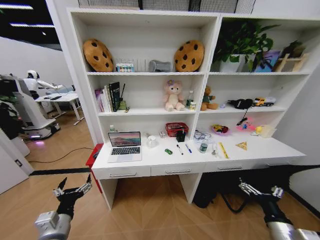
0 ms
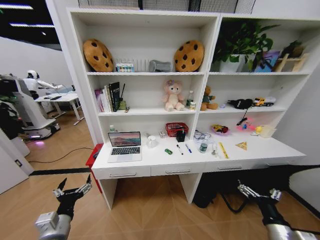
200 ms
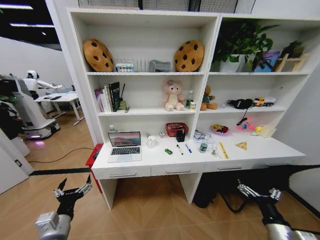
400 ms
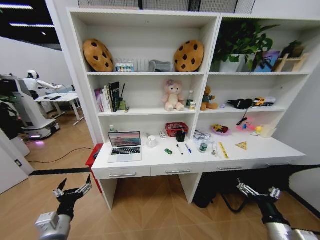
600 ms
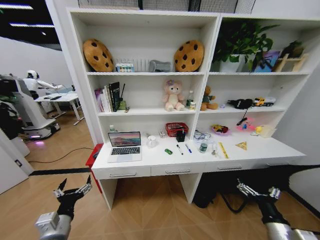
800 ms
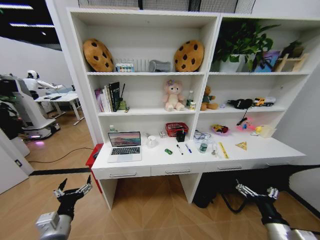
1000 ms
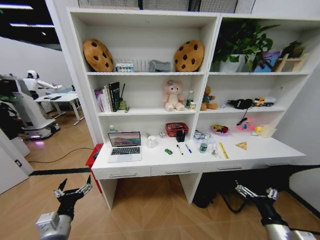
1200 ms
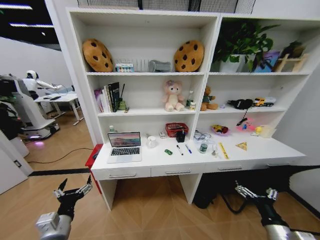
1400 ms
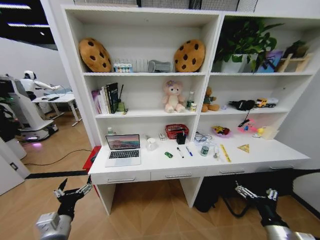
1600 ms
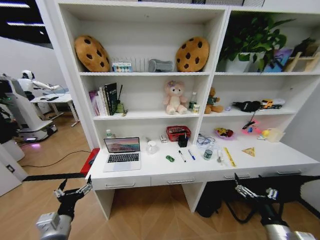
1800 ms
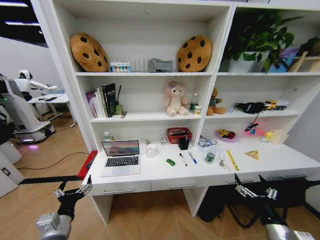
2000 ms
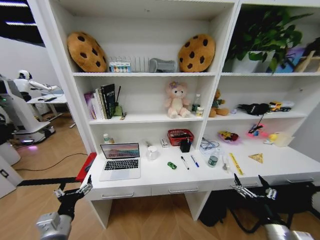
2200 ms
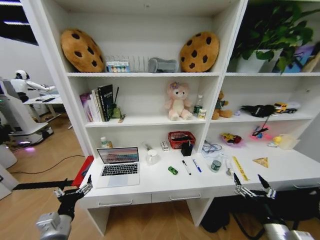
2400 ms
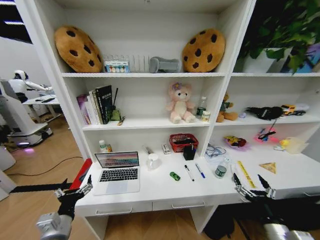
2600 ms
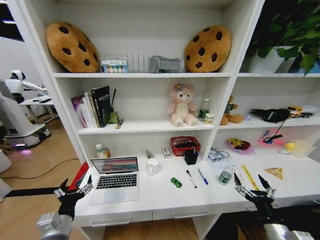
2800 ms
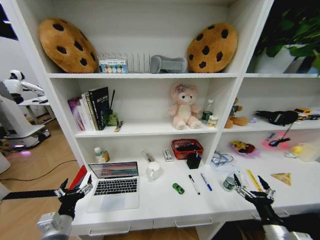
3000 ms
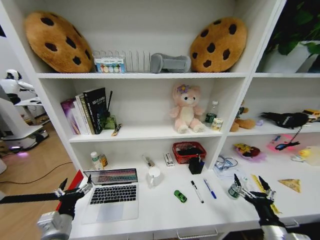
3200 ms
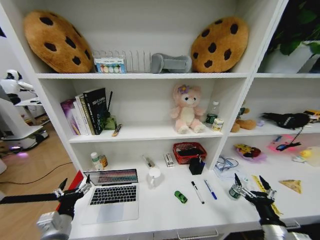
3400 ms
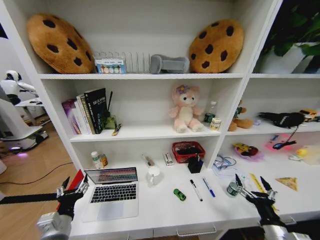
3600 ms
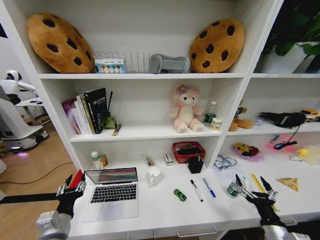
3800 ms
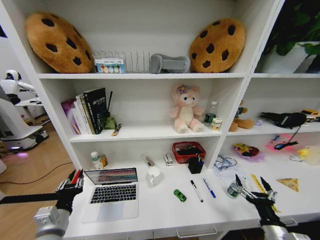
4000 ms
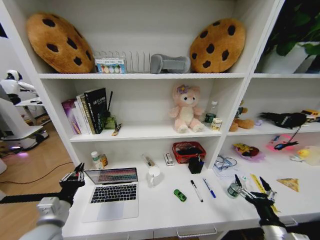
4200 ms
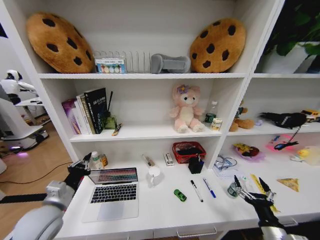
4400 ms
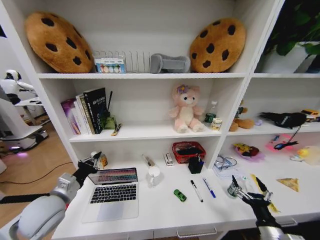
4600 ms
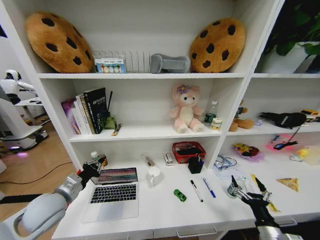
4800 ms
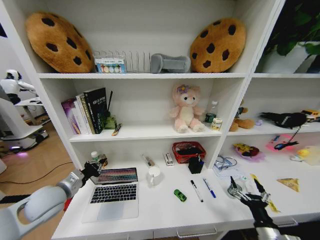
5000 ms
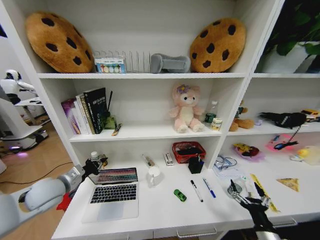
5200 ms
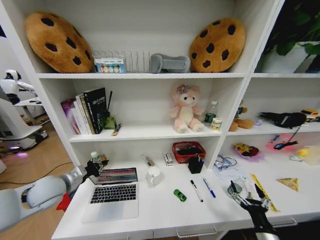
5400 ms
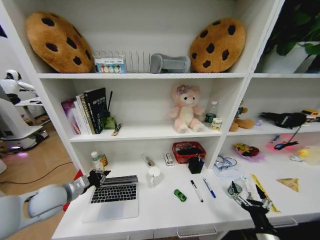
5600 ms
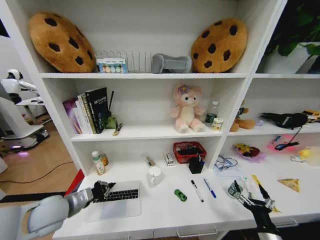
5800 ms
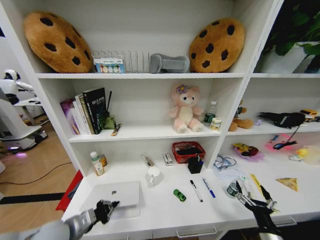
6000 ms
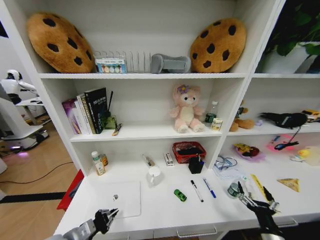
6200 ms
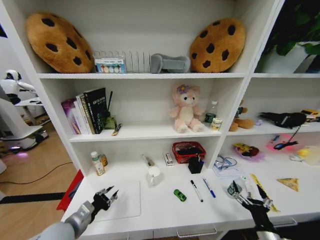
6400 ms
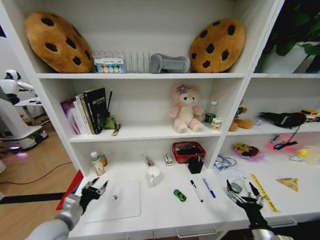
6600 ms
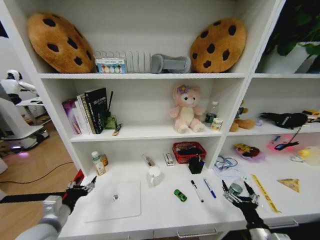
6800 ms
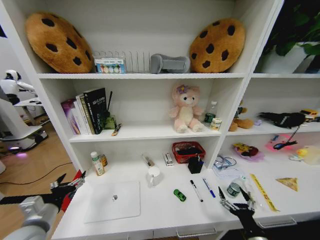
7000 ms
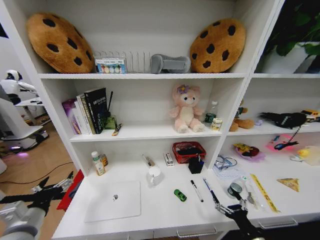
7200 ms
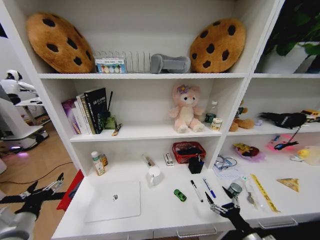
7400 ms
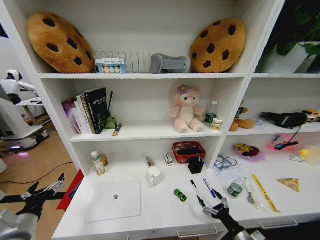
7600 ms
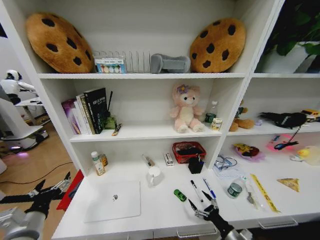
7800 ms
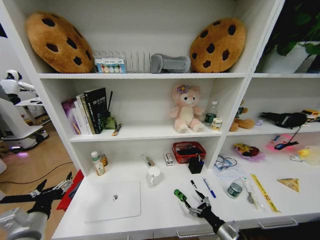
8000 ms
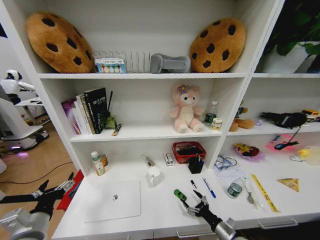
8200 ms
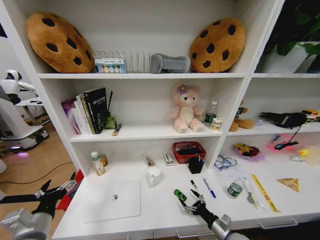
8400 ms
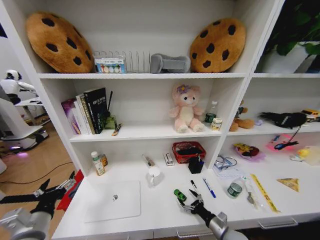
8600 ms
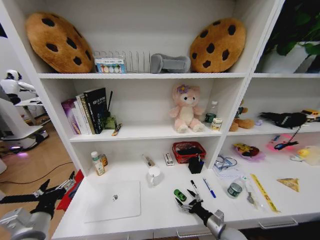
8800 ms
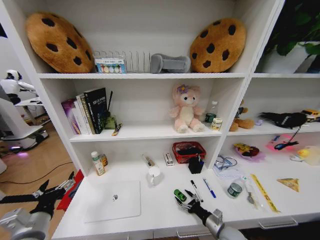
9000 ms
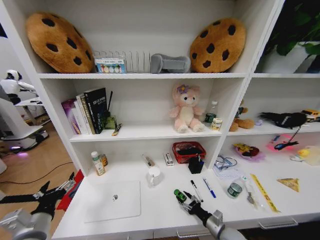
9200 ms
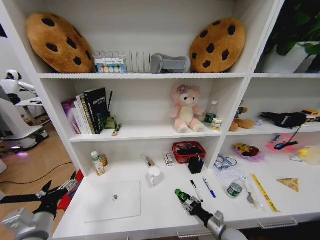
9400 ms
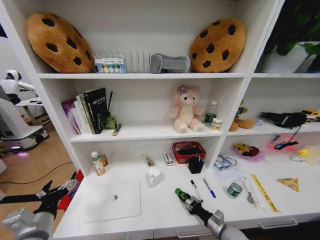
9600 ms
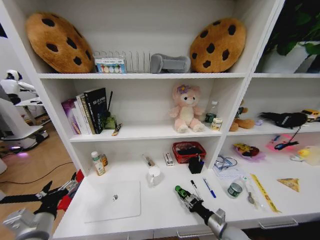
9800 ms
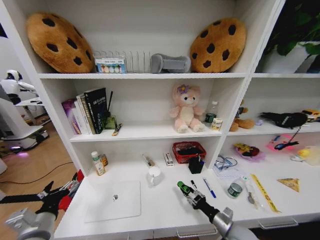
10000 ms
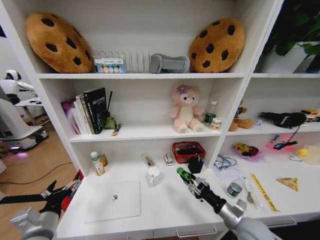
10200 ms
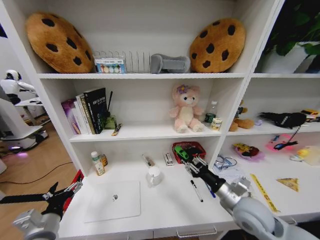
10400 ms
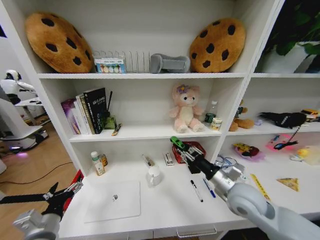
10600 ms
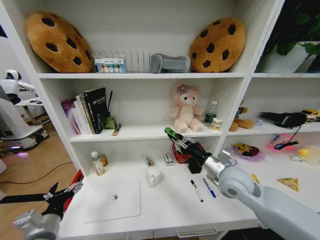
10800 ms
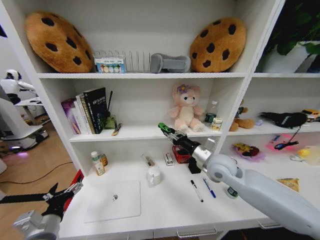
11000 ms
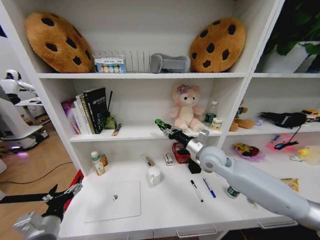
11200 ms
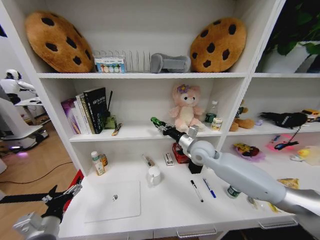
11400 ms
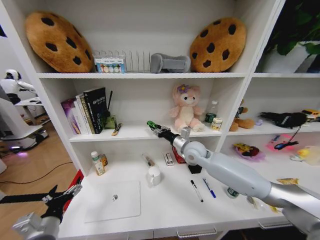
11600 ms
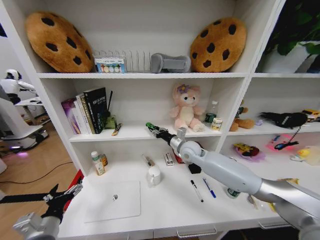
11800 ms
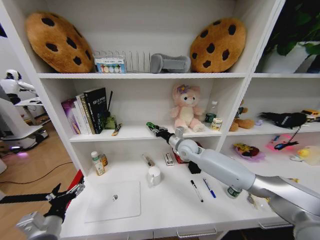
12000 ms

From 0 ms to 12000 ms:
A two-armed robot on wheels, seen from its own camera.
Task of the whole recording: Organize the objects on the table.
From 3000 ms to 4400 ms: The left gripper is displaced upward and forward by roughly 10 cm, and closes its fingers.
From 4400 ms to 6000 ms: The left gripper goes forward and returns, about 10 cm each way.
From 6000 ms to 7600 ms: The left gripper travels to the left by about 10 cm, and opens.
From 7600 ms to 9000 ms: The right gripper shifts approximately 10 cm forward and to the left.
From 9000 ms to 10400 ms: The right gripper is displaced upward by roughly 20 cm, and closes its fingers.
From 10400 ms to 12000 ms: The right gripper moves forward and to the left, approximately 30 cm.

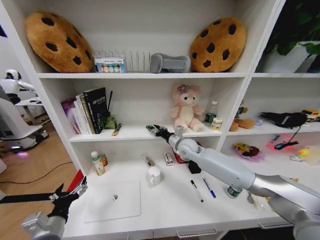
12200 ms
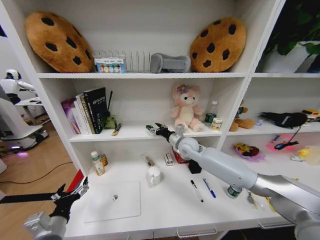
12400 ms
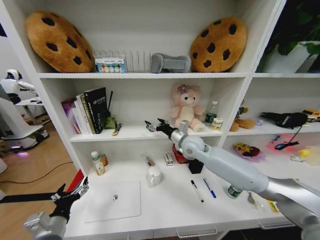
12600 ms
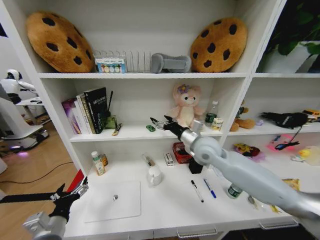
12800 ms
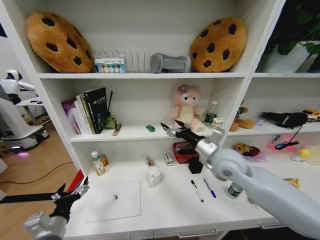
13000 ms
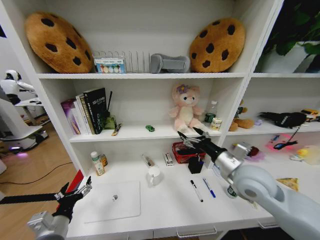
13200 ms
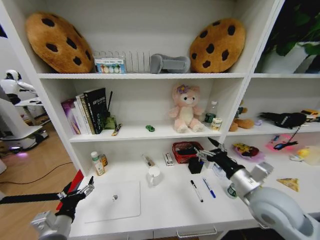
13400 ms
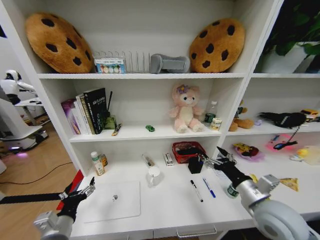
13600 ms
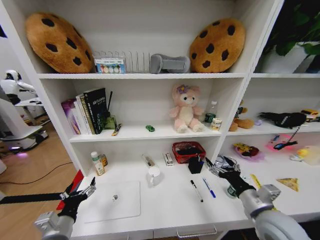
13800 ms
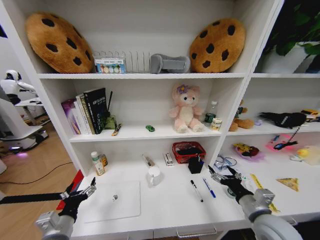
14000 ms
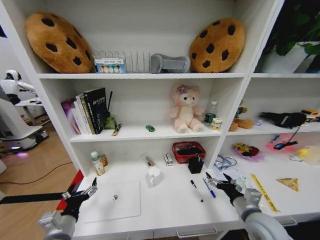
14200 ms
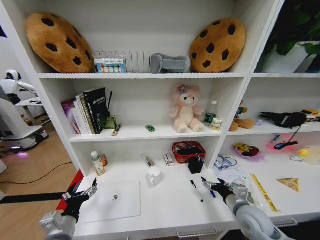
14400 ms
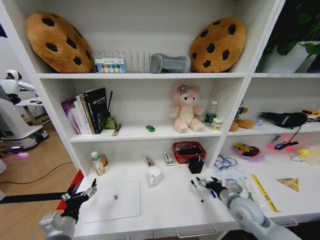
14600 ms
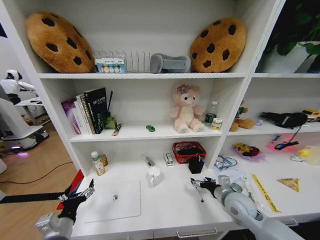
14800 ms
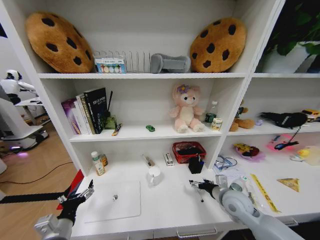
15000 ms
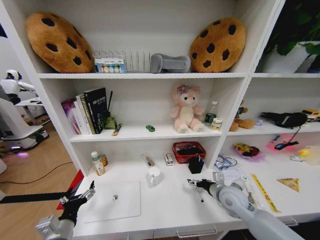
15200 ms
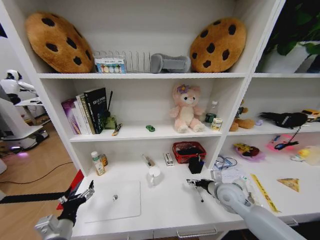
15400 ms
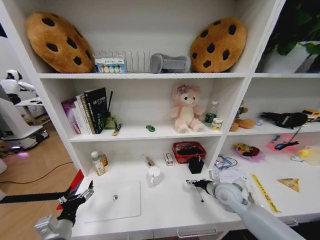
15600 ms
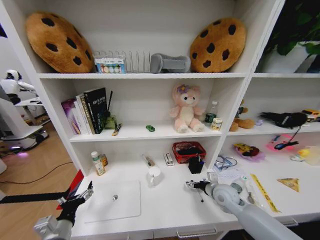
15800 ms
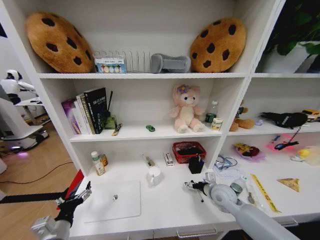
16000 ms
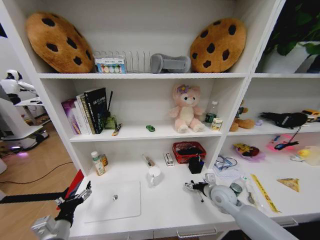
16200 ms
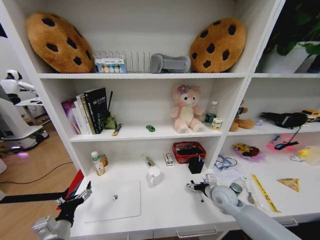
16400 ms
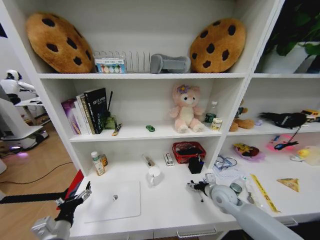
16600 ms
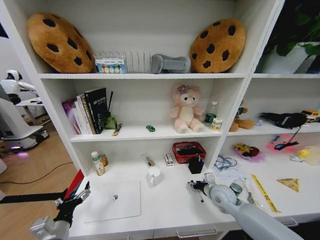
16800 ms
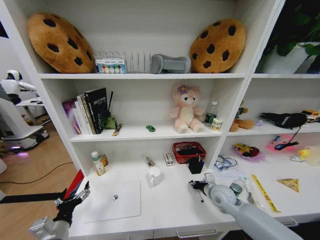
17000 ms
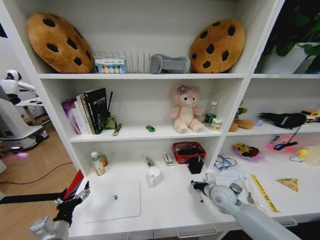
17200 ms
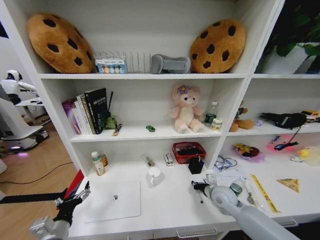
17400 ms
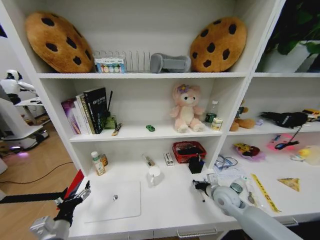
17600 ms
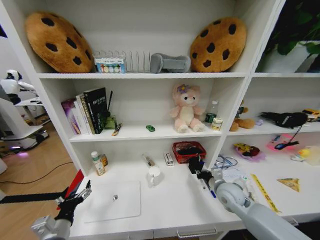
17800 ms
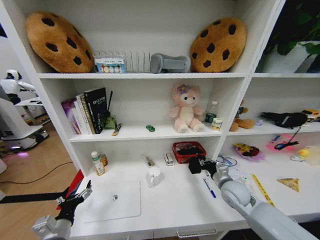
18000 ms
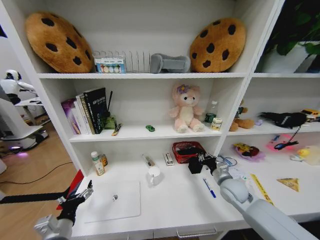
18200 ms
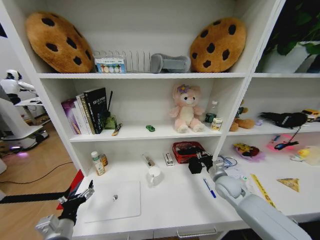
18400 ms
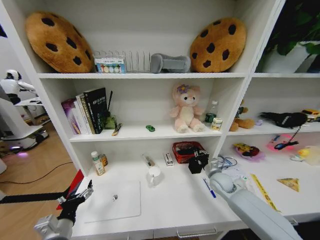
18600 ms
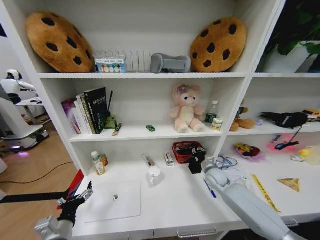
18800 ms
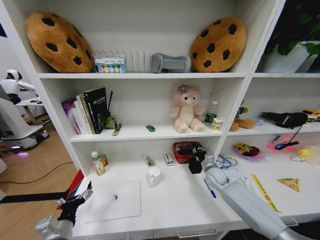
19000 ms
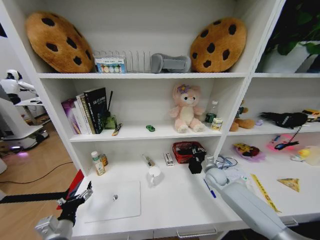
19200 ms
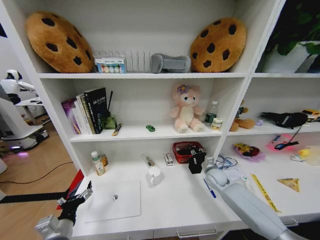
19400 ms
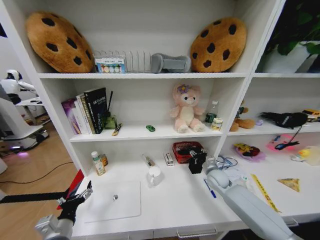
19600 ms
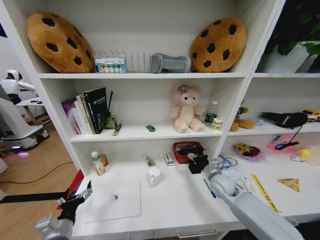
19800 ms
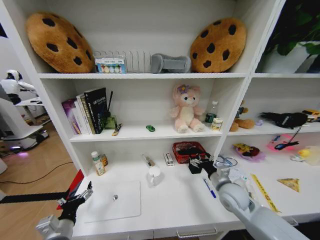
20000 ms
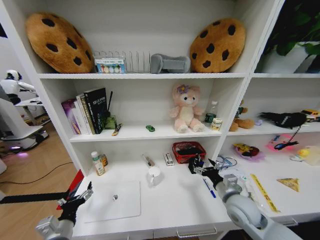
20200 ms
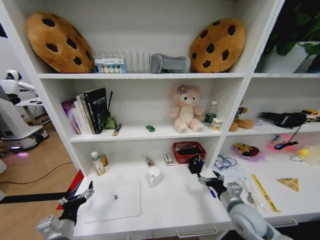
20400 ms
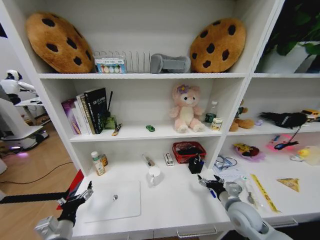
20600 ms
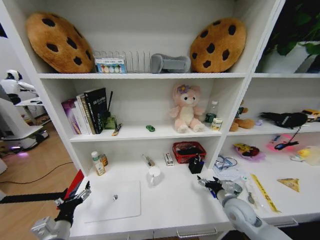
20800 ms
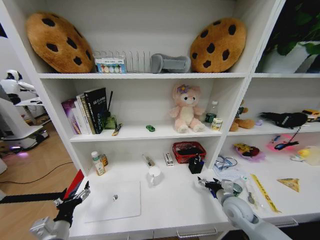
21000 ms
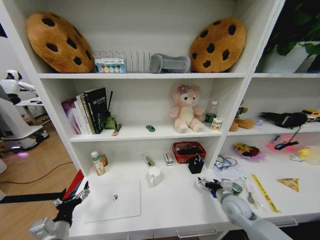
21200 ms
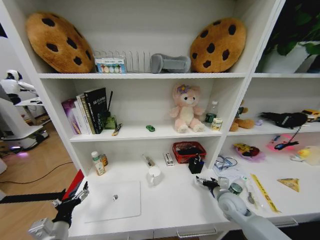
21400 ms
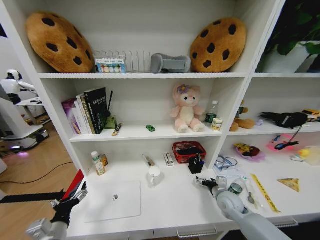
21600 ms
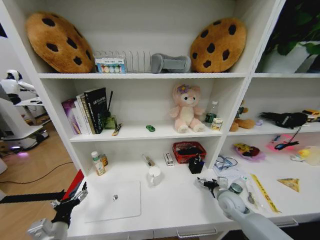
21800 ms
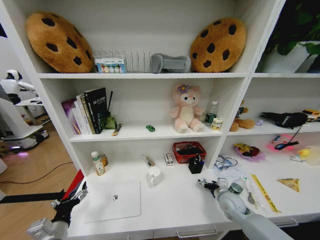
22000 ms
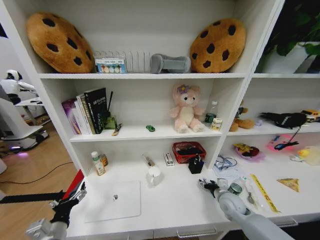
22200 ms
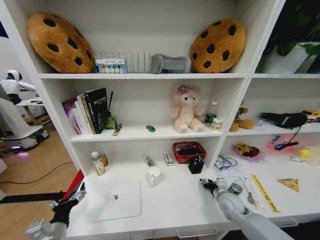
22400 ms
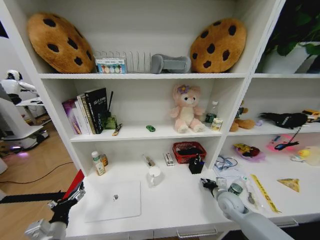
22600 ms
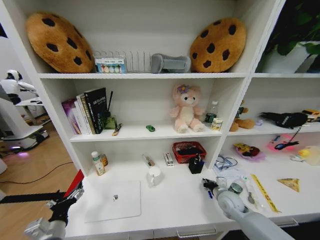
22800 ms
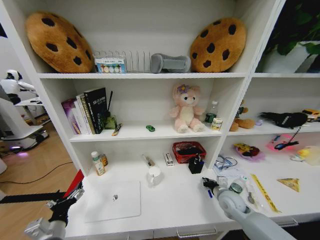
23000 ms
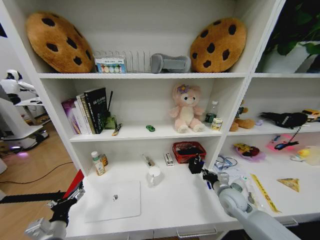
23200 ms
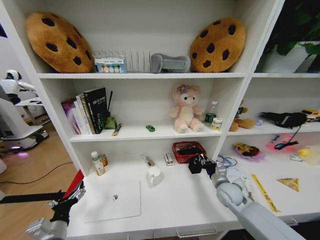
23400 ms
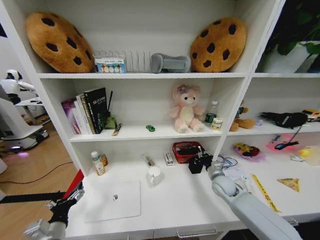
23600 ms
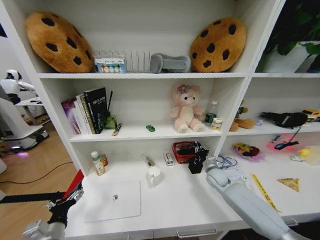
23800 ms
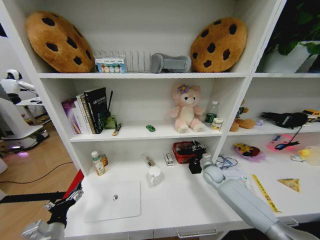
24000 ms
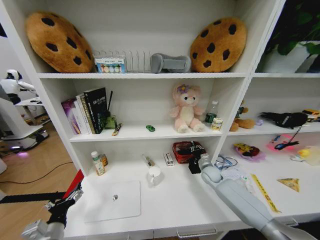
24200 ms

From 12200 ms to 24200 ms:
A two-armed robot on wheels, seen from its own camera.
Task of the whole recording: Organize the objects on the table.
From 12200 ms to 13800 ms: The right gripper heads backward and to the right, covering roughly 35 cm, and opens its fingers.
From 13800 ms to 15200 ms: The right gripper shifts some 15 cm forward and downward.
From 15200 ms to 16600 ms: The grippers make only small movements.
From 16600 ms to 18200 ms: The right gripper closes.
From 18200 ms to 19800 ms: The right gripper opens up.
From 19800 ms to 21200 ms: The right gripper is displaced backward by roughly 10 cm.
From 21200 ms to 22600 ms: The right gripper closes its fingers.
From 22600 ms to 24200 ms: The right gripper goes roughly 15 cm forward.
